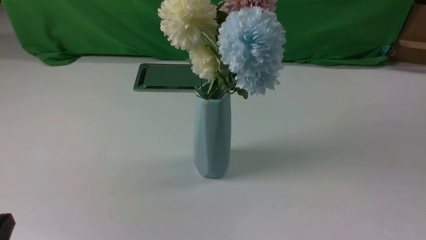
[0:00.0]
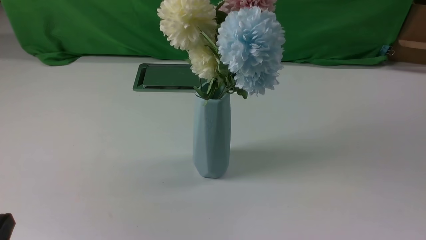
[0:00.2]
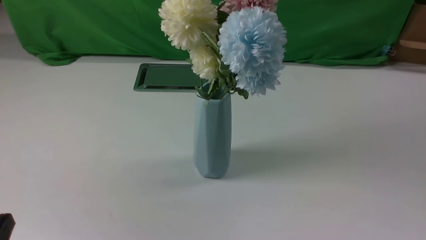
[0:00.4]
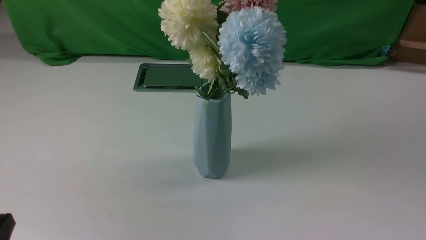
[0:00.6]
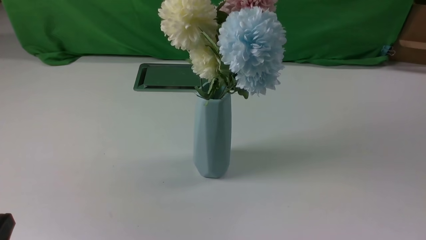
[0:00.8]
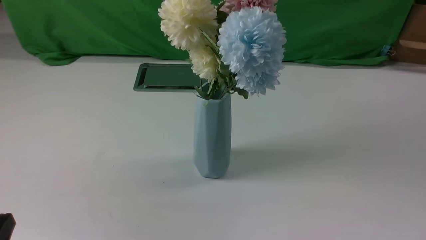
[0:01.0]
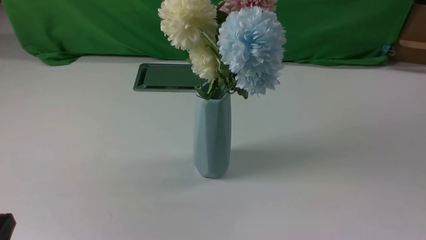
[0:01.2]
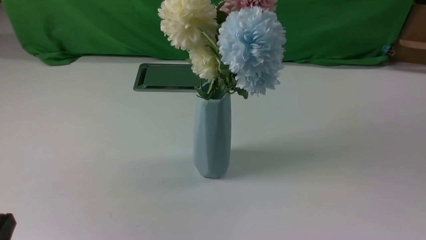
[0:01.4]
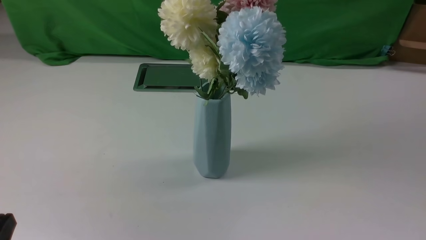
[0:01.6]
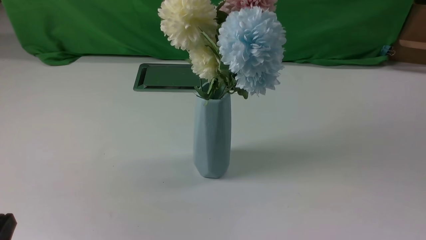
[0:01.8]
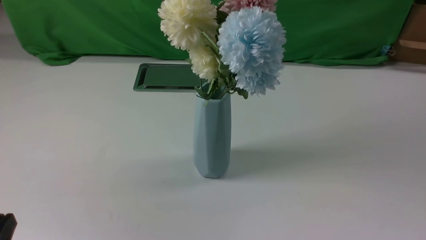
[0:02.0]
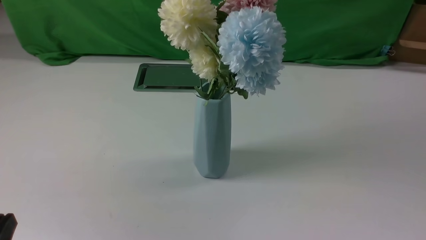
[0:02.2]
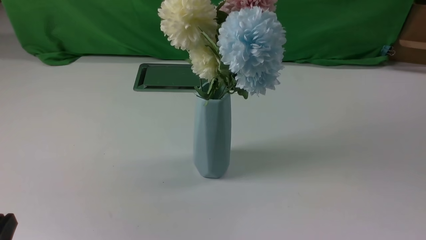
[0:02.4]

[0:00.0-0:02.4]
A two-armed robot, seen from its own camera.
Task of the whole recording: insert the flowers into the vase on the white table.
0:01.2 to 0:02.4: Both grippers stay put.
